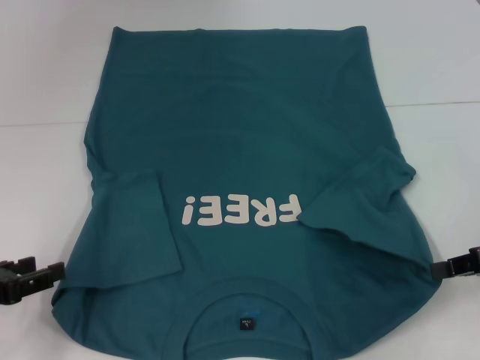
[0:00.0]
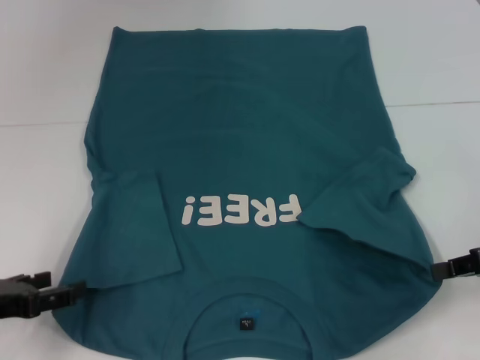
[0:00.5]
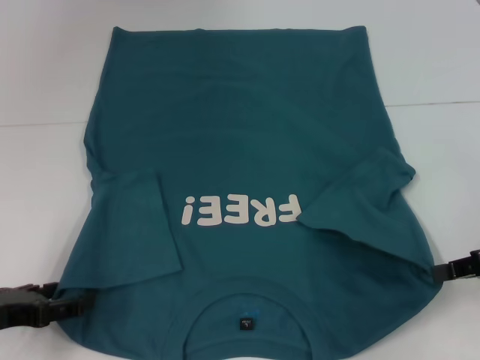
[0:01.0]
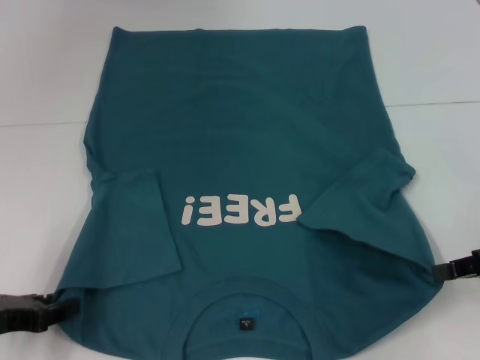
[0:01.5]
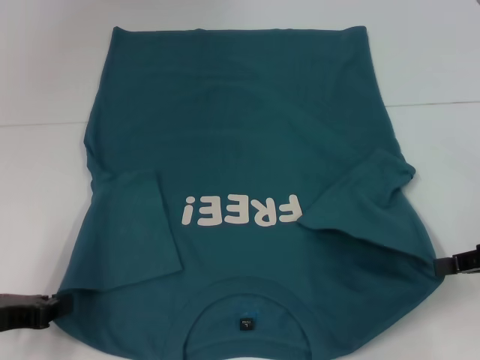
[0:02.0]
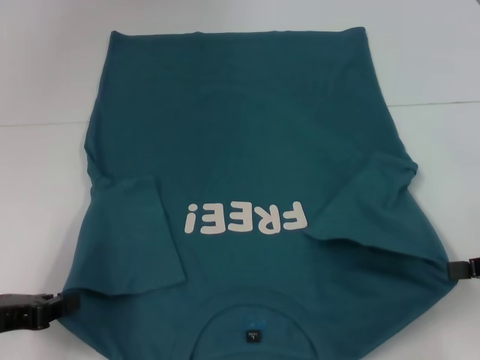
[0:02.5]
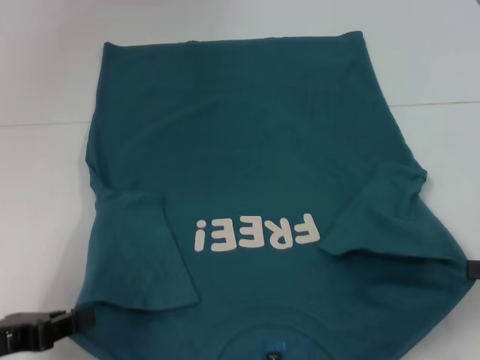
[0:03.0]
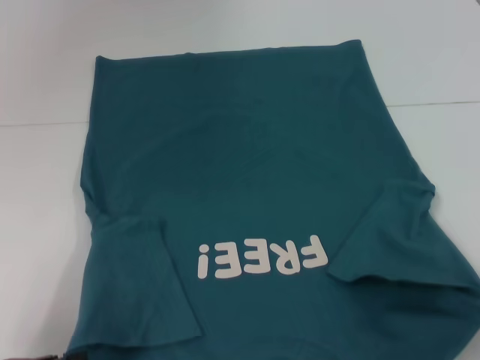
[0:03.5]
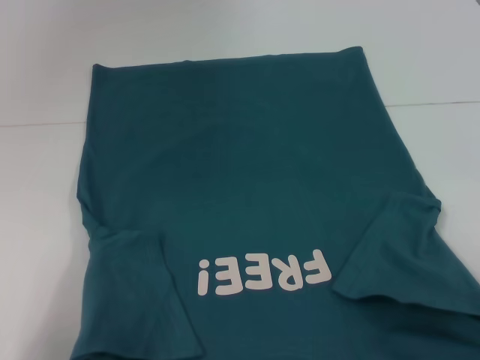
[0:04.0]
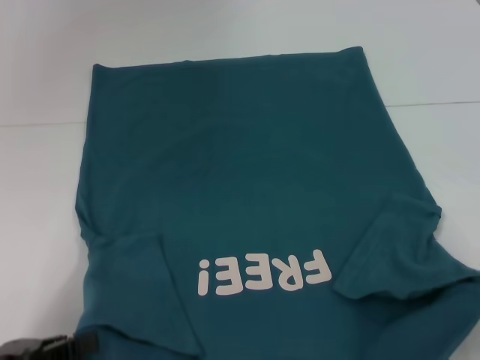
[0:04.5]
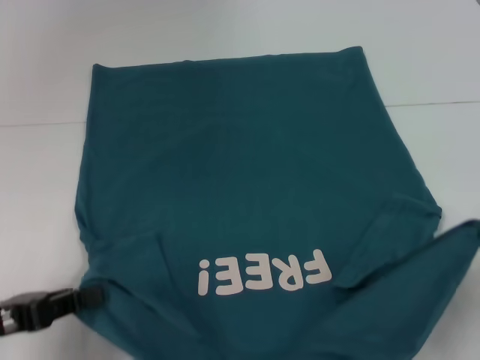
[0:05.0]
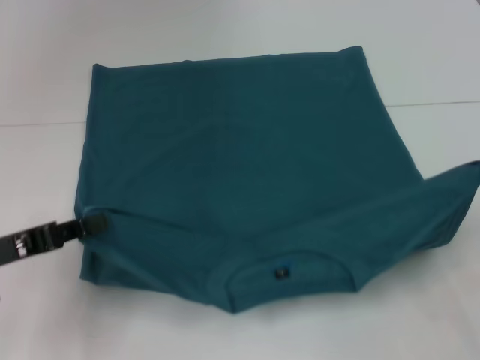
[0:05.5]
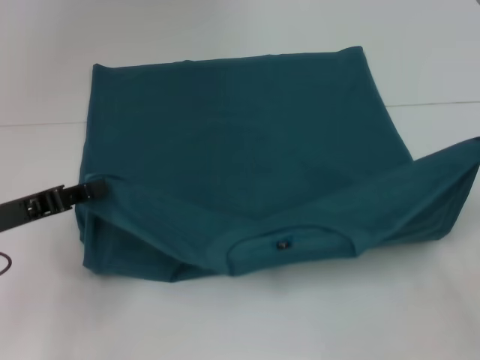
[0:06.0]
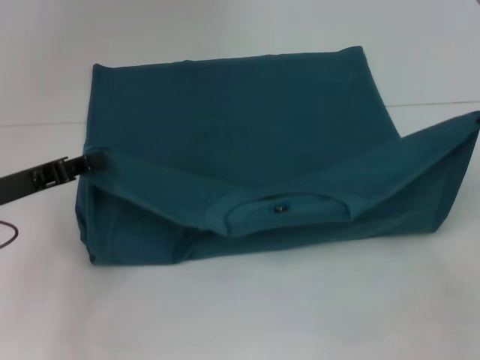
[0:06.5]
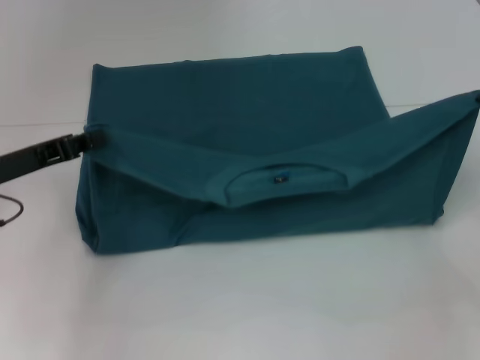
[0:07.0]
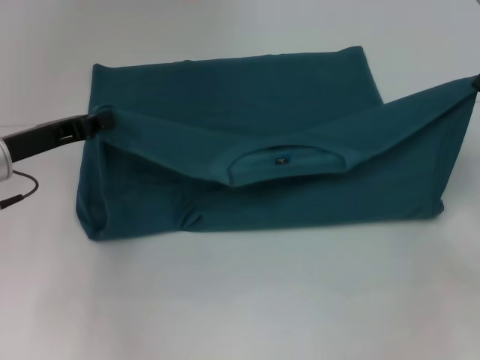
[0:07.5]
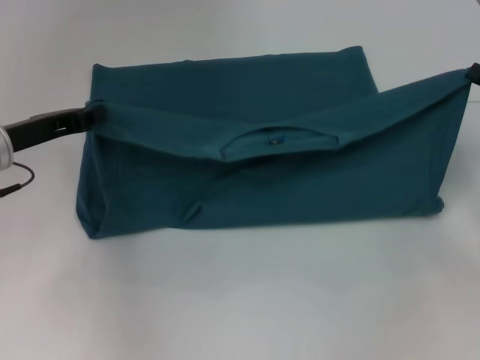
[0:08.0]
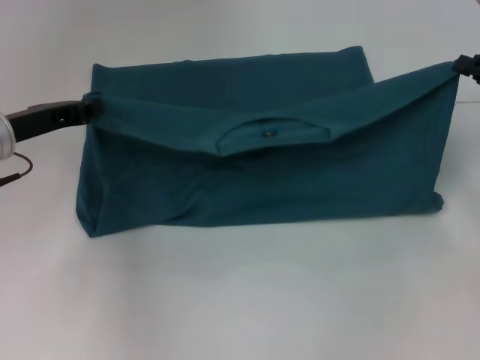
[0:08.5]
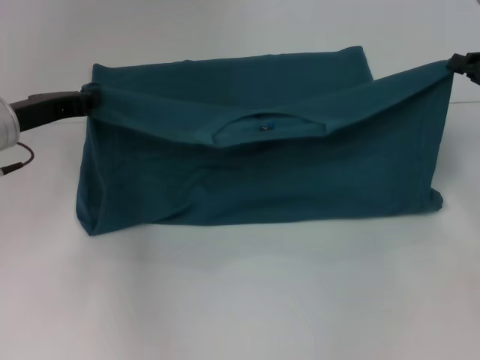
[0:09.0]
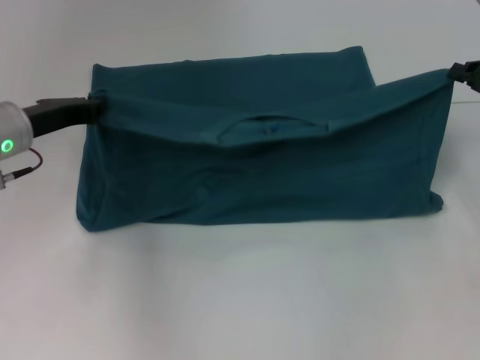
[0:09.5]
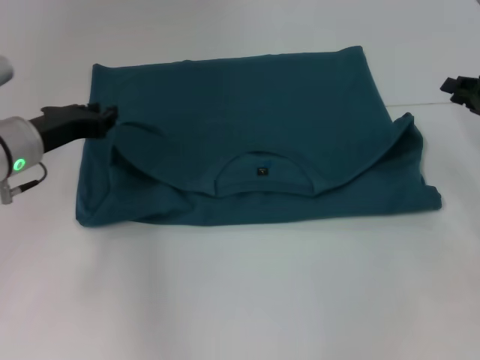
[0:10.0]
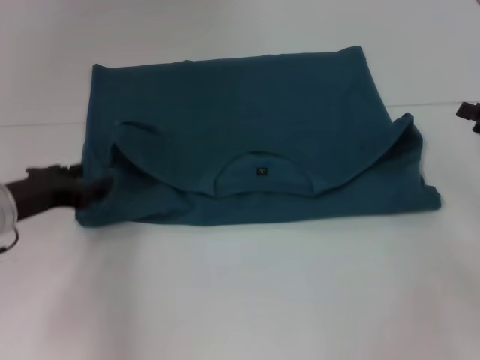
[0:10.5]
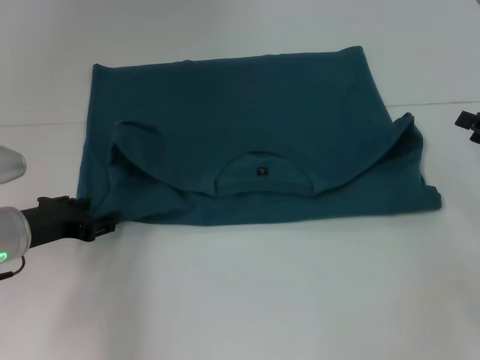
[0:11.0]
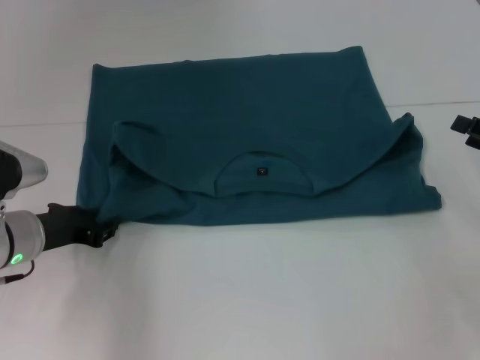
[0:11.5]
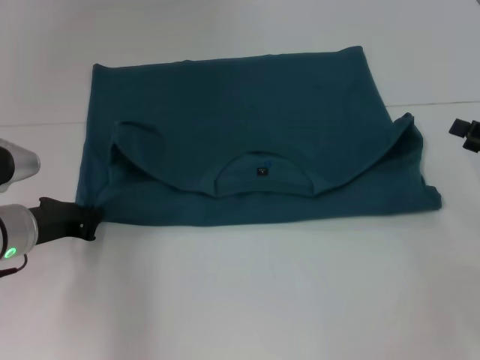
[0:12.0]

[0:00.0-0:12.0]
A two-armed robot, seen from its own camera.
Step, 0:00.0 to 0:09.5: Fold the clothes to the left.
Step, 0:00.0 to 0:09.5: Fold the clothes to the right.
0:00.0 to 0:02.0: The left gripper closes its fingers.
0:02.0 to 0:04.0: Both grippers move backward, about 10 cm.
0:04.0 to 0:06.0: Both grippers travel together forward, roughly 15 cm.
0:06.0 to 0:08.0: Both grippers move forward, about 10 cm.
0:08.0 to 0:10.0: The grippers make only small movements.
0:10.0 to 0:12.0: The left gripper shifts approximately 5 cm backward and downward, and opens, then closes once more; the right gripper goes some 10 cm backward, and opens up.

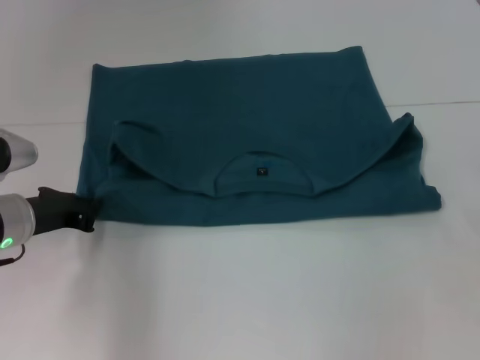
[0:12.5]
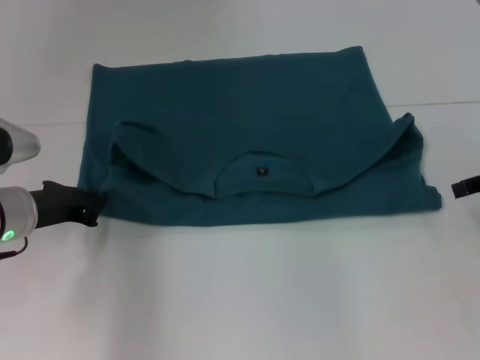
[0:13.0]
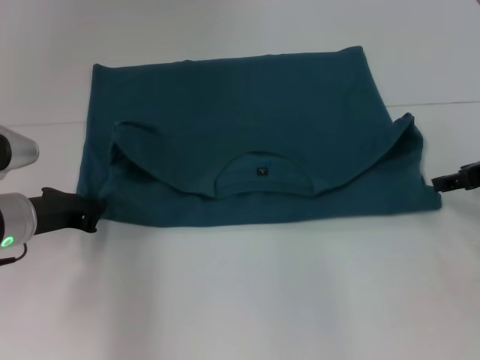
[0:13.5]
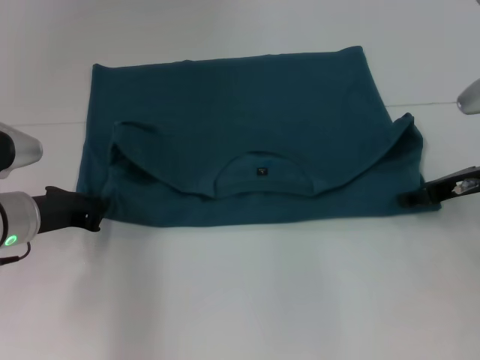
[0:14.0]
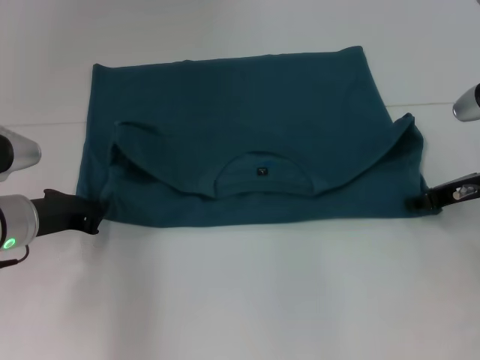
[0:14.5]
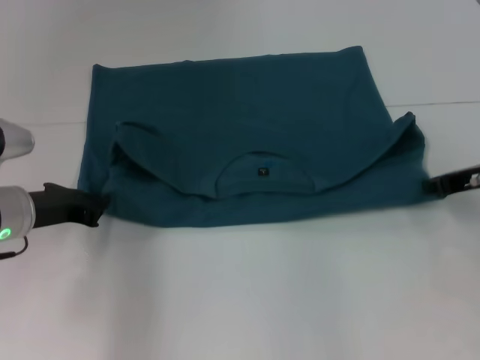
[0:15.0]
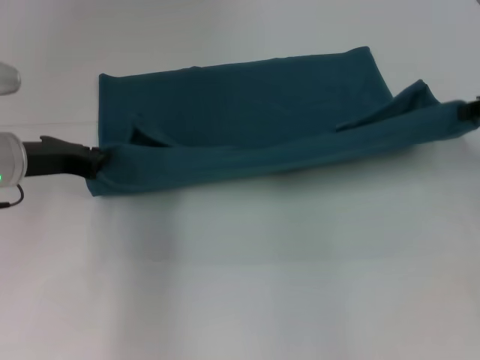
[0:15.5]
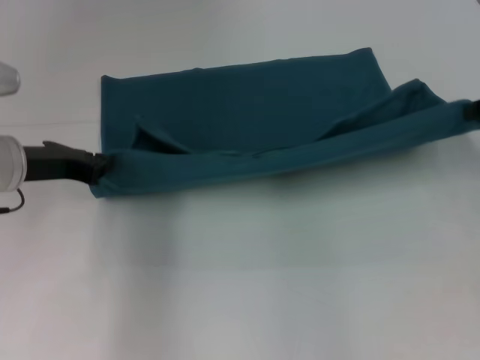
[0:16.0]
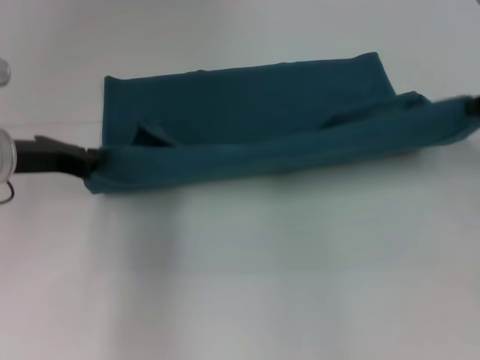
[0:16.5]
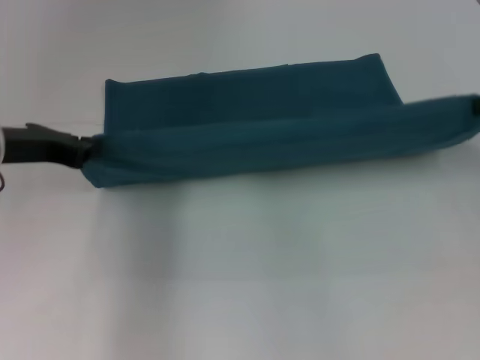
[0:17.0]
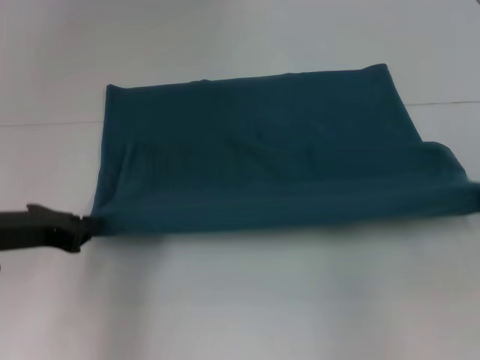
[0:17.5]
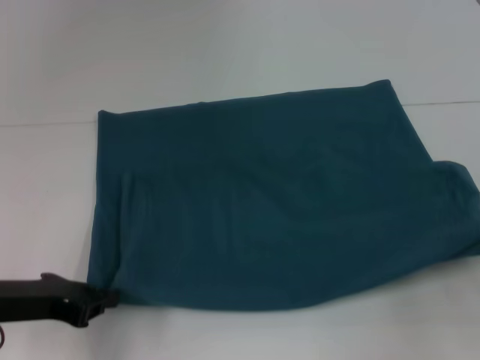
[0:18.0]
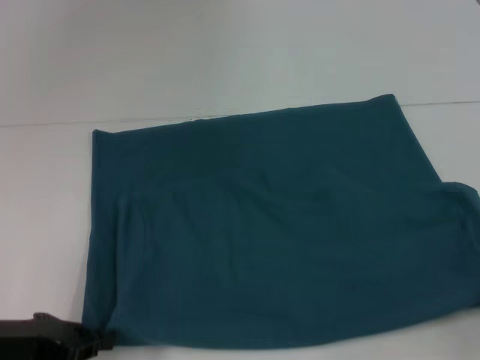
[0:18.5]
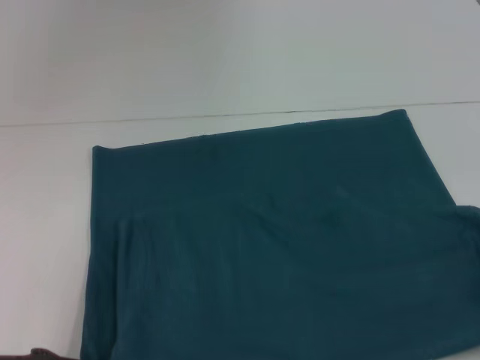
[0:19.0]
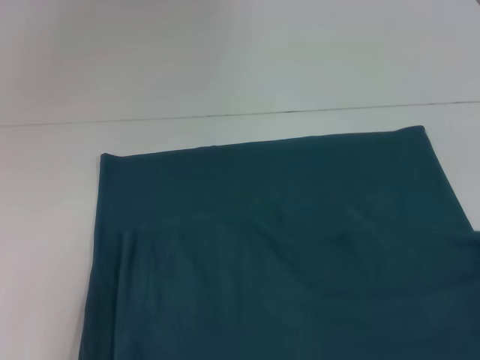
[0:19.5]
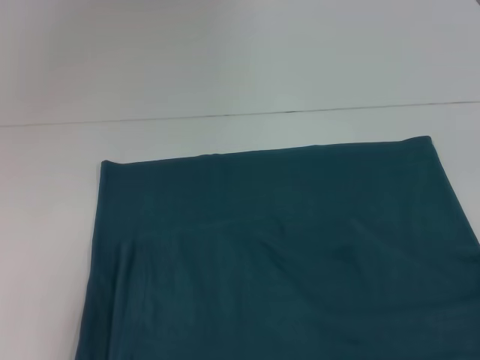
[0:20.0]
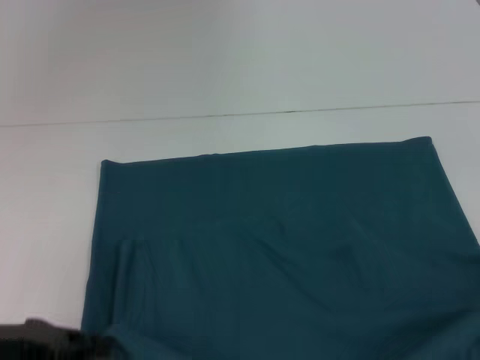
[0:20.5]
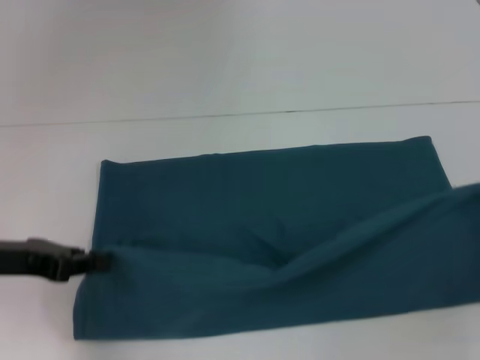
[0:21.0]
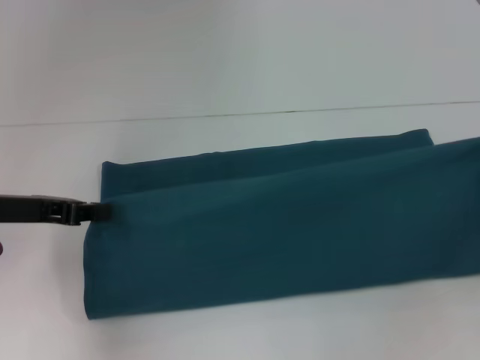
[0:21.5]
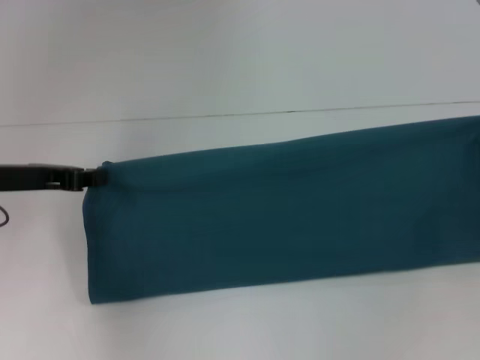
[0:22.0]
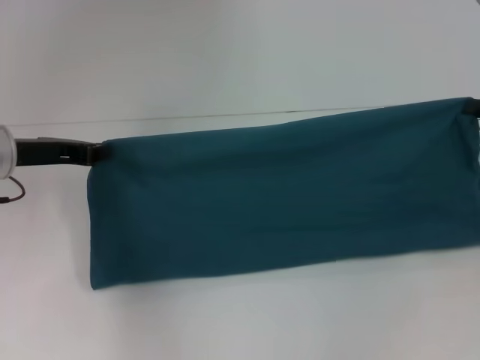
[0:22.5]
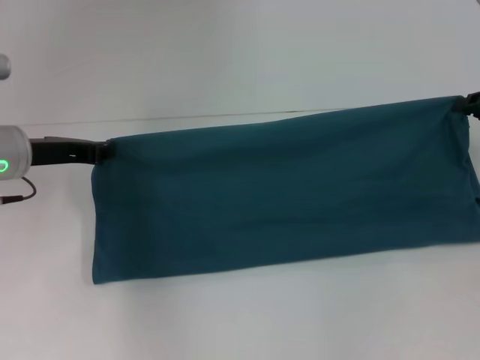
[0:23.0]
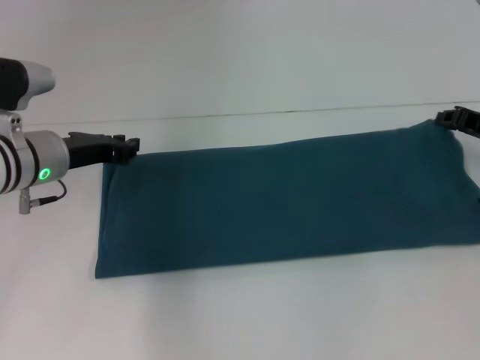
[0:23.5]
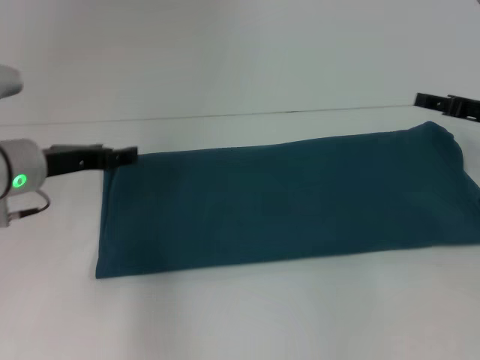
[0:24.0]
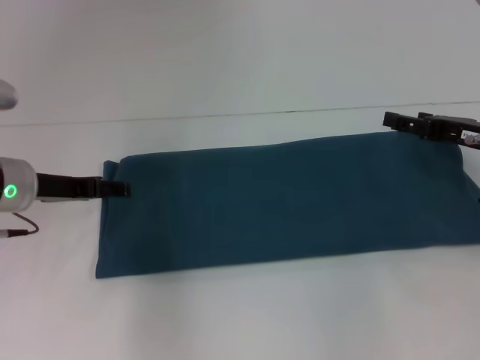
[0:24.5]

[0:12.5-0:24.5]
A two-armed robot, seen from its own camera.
Step, 0:12.5 to 0:19.5: Pull the clothes with your left hand.
Step, 0:12.5 to 0:19.5: Pull the clothes with your right hand.
Step, 0:20.0 to 0:23.0: Fold the clothes to the left.
0:12.5 to 0:14.5: The right gripper moves to the left, forward and downward, roughly 15 cm.
0:14.5 to 0:16.5: The right gripper moves upward and to the right, some 10 cm, and closes its fingers; the left gripper moves upward, approximately 10 cm.
0:16.5 to 0:18.5: Both grippers travel together backward and downward, approximately 20 cm.
0:20.5 to 0:22.5: The grippers both shift forward by approximately 20 cm.
0:22.5 to 0:24.5: The right gripper shifts some 5 cm to the left, and opens up. The left gripper opens.

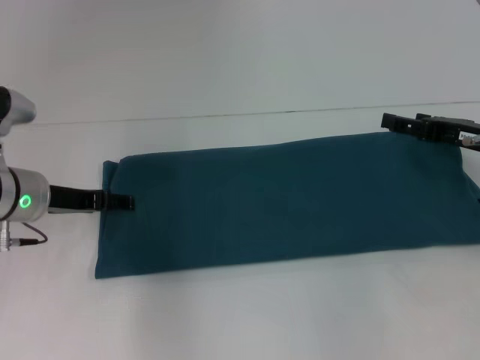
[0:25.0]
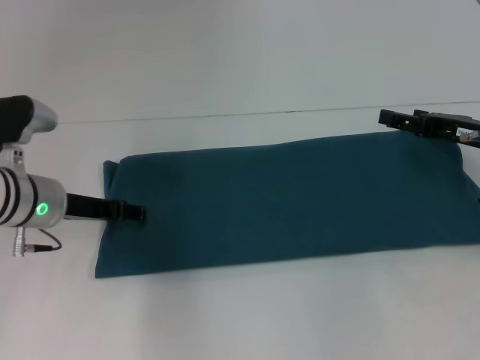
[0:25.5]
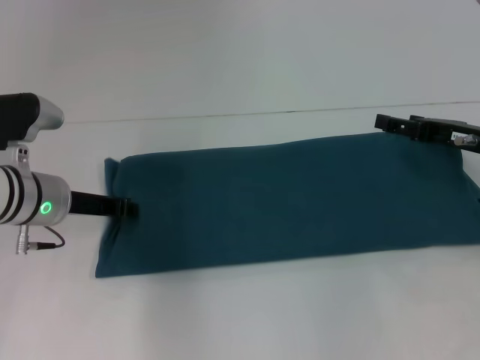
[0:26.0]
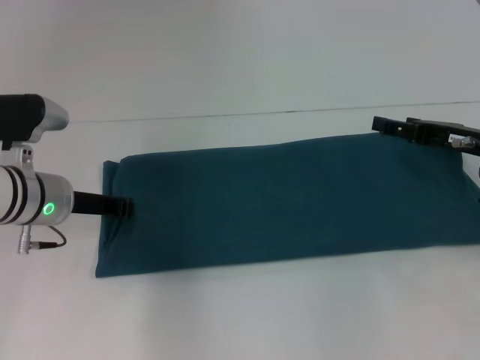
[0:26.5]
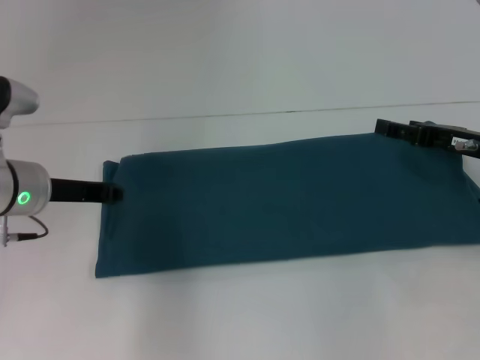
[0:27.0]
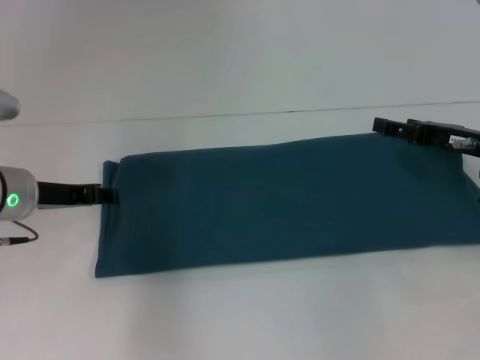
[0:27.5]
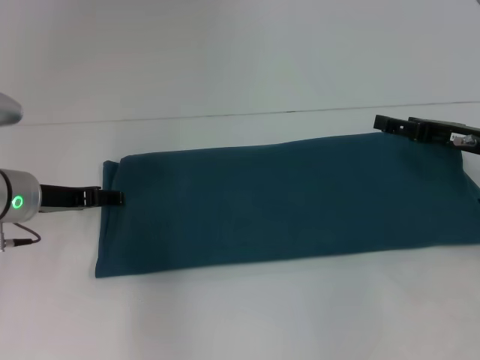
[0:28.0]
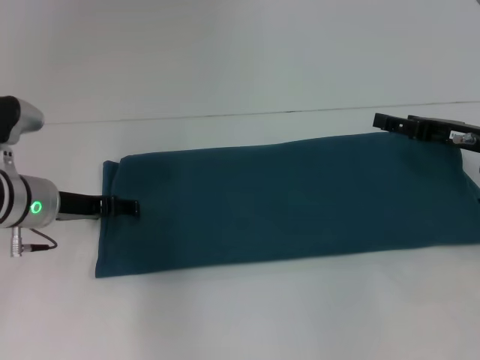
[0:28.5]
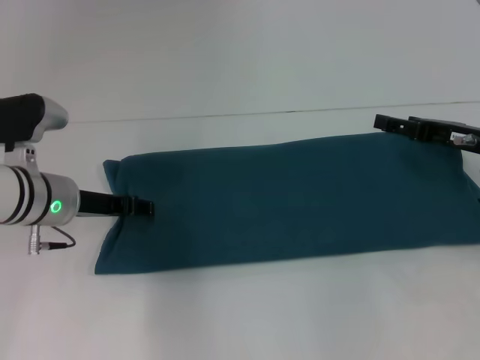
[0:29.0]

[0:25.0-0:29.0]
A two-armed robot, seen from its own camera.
0:25.0 to 0:27.0: The left gripper closes.
0:27.0 to 0:29.0: The left gripper opens up.
